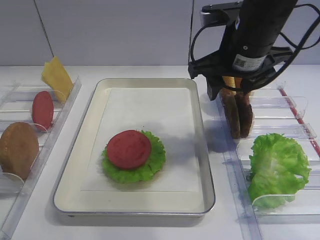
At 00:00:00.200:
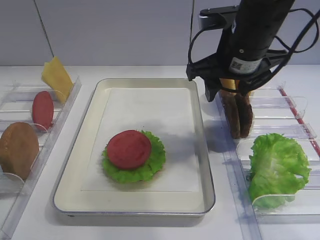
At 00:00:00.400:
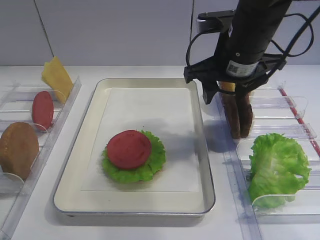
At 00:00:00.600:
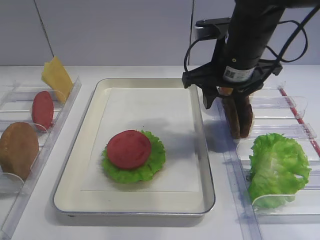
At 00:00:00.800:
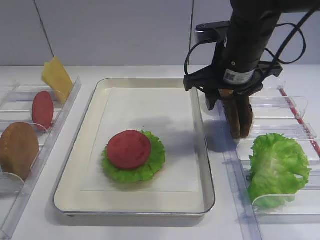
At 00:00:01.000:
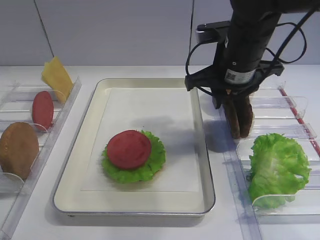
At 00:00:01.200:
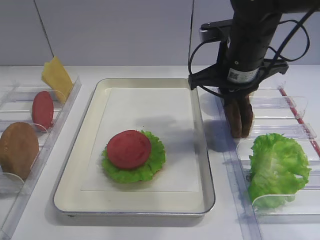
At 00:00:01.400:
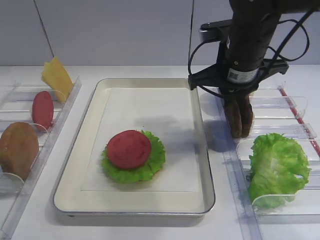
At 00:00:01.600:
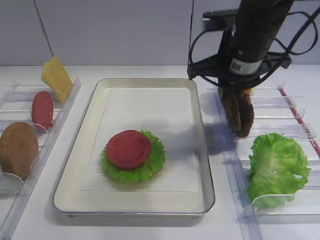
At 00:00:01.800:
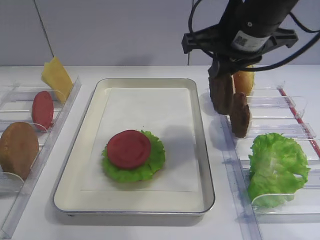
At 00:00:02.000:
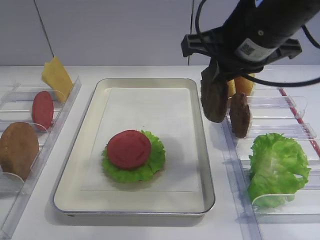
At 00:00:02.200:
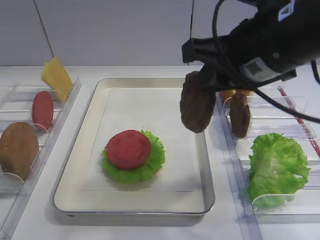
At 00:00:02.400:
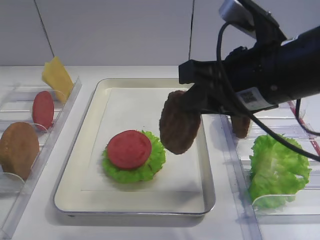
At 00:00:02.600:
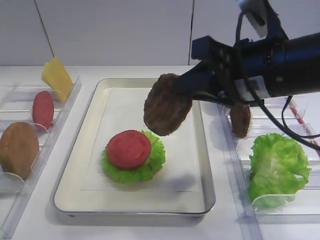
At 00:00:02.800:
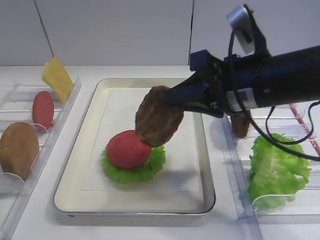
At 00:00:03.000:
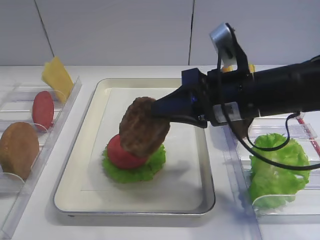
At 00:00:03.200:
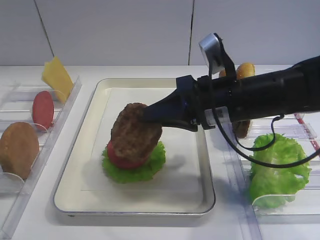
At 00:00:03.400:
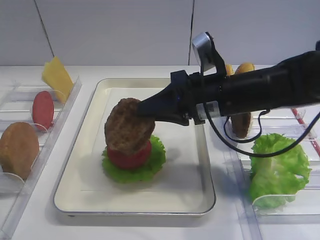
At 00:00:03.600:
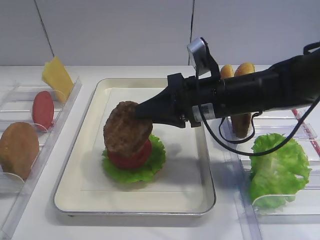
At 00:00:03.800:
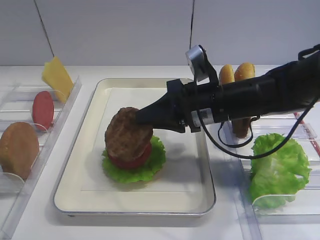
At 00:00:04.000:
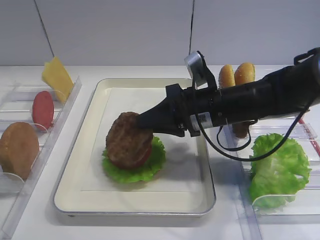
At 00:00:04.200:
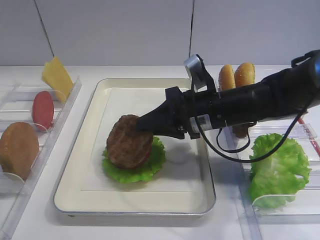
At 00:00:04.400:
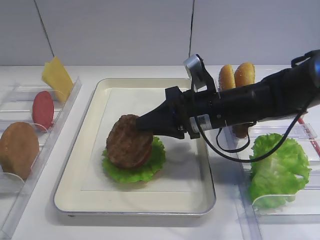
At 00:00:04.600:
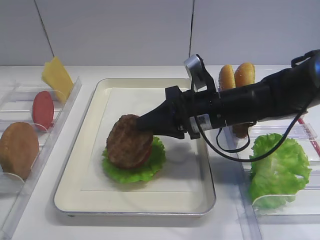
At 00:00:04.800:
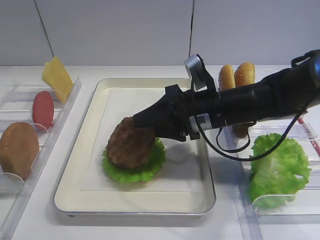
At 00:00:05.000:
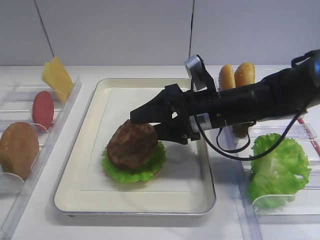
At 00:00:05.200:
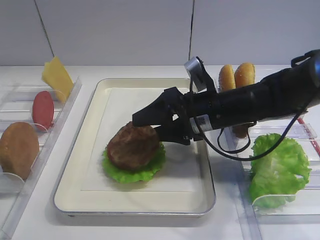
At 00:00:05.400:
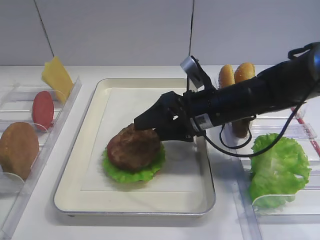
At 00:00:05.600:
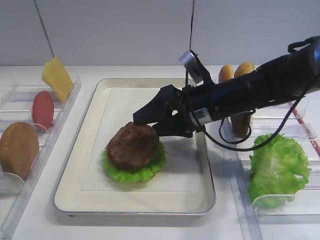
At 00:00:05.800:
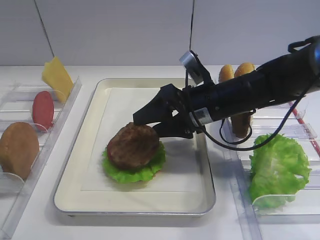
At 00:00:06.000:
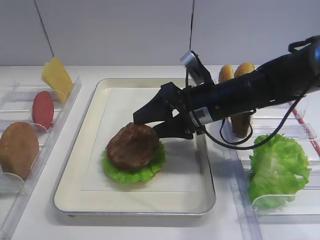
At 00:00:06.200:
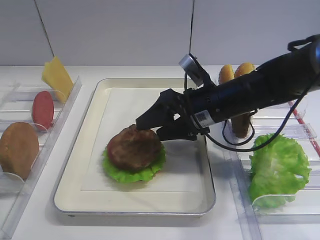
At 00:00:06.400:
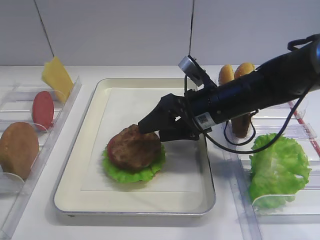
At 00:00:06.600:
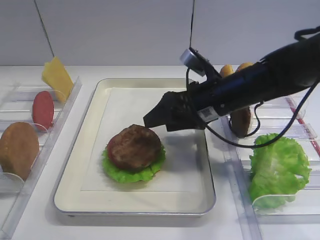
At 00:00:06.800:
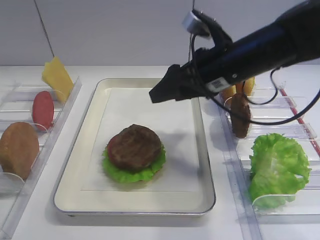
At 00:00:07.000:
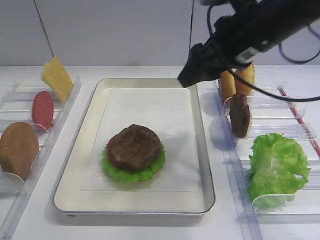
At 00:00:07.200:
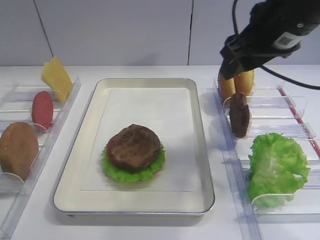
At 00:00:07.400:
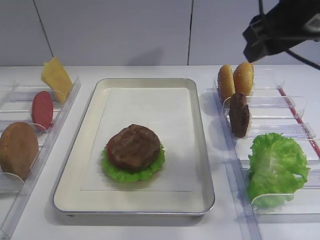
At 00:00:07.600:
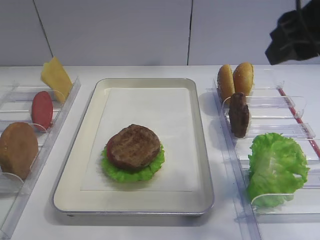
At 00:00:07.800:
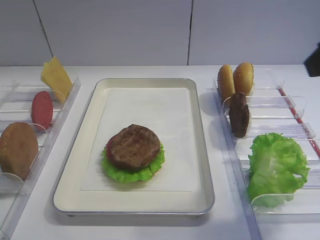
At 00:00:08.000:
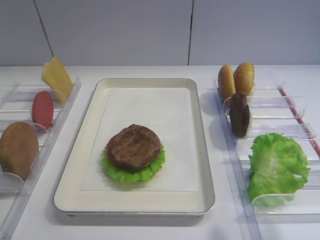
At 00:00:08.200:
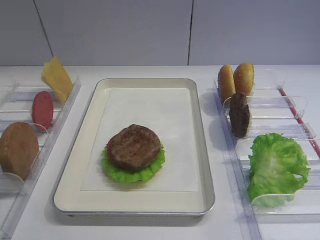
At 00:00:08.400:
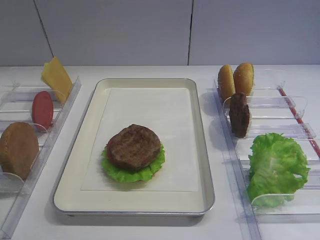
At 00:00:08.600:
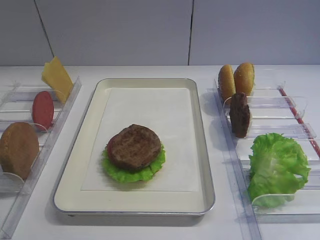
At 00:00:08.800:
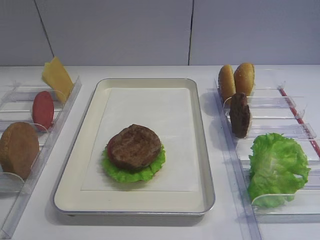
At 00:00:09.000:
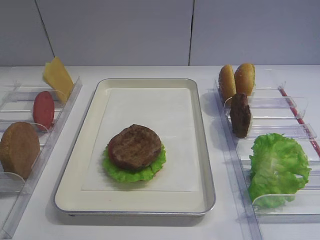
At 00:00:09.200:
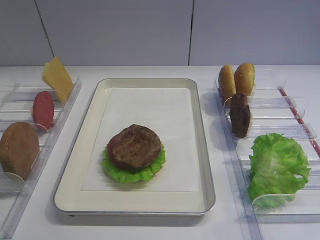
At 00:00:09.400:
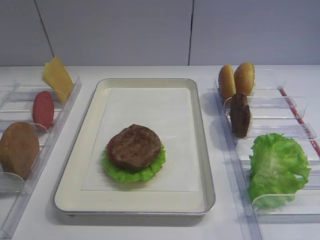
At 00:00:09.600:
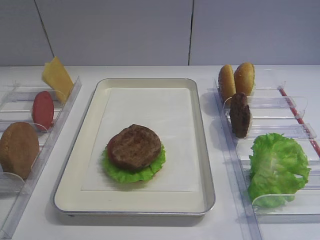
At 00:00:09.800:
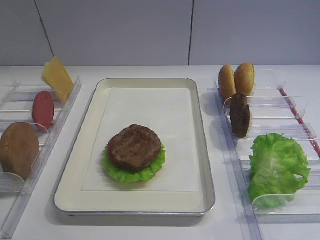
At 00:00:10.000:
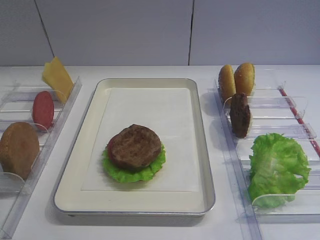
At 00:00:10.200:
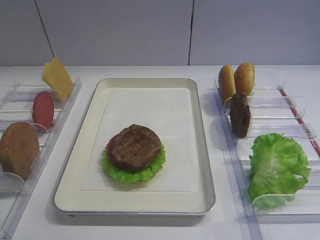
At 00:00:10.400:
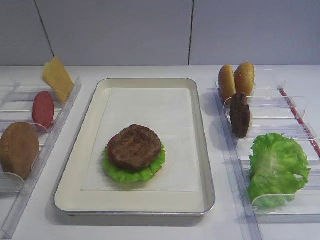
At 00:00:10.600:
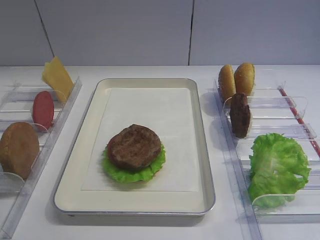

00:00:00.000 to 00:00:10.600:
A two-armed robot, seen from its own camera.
Step, 00:00:01.800 to 00:00:06.800: Place the cutlet on the tomato slice with the right gripper.
00:00:00.000 to 00:00:01.600: The right gripper closes up.
00:00:01.600 to 00:00:03.000: The right gripper travels backward by roughly 5 cm.
00:00:03.000 to 00:00:04.600: The right gripper is displaced downward and forward by roughly 10 cm.
00:00:04.600 to 00:00:06.000: The right gripper opens its fingers.
00:00:06.000 to 00:00:07.600: The right gripper travels upward, to the right and backward by roughly 25 cm.
00:00:07.600 to 00:00:09.000: The right gripper moves backward, about 25 cm.
00:00:09.000 to 00:00:10.600: Neither gripper changes place.

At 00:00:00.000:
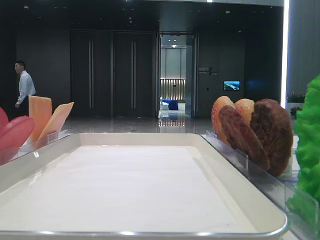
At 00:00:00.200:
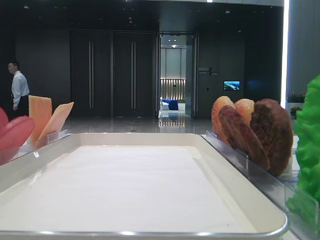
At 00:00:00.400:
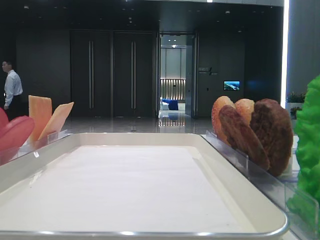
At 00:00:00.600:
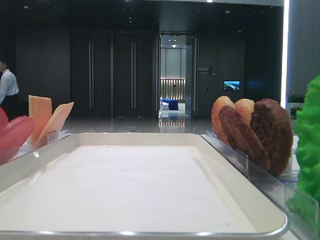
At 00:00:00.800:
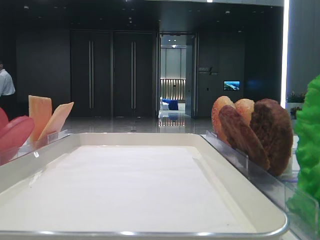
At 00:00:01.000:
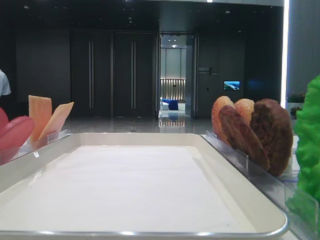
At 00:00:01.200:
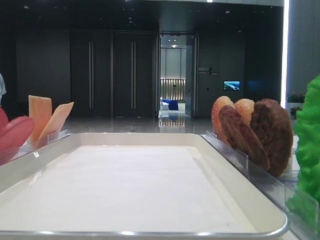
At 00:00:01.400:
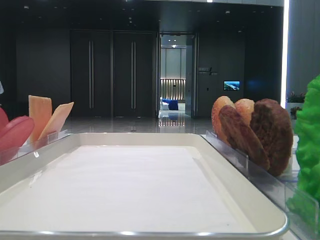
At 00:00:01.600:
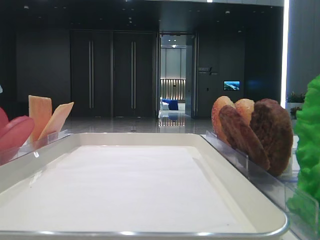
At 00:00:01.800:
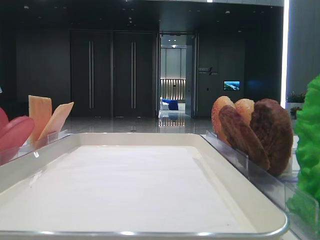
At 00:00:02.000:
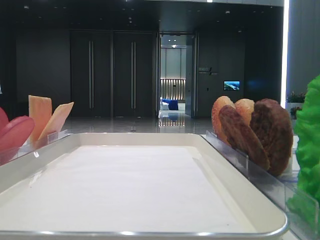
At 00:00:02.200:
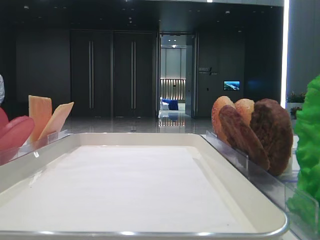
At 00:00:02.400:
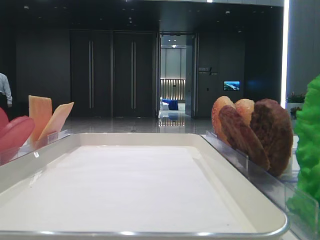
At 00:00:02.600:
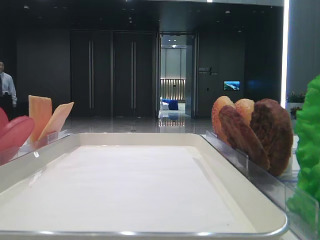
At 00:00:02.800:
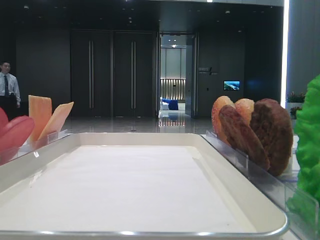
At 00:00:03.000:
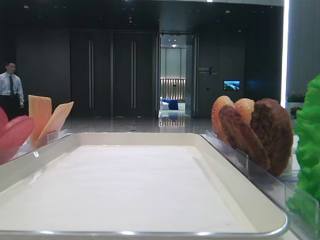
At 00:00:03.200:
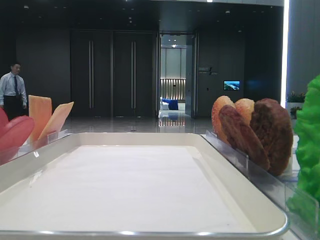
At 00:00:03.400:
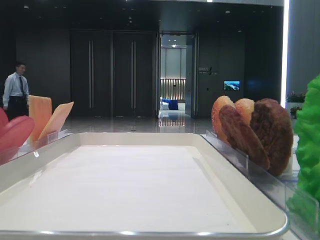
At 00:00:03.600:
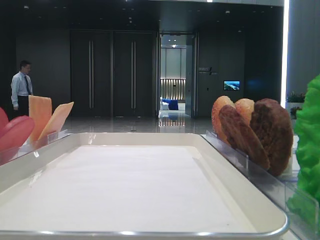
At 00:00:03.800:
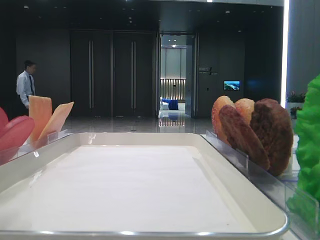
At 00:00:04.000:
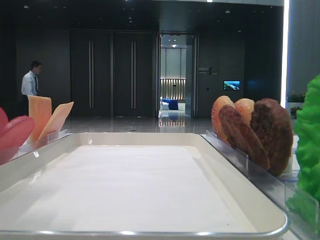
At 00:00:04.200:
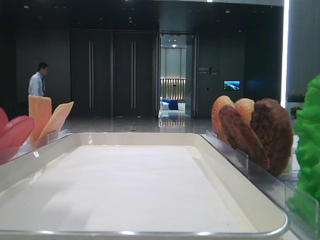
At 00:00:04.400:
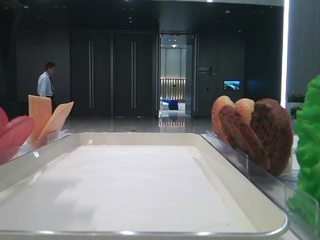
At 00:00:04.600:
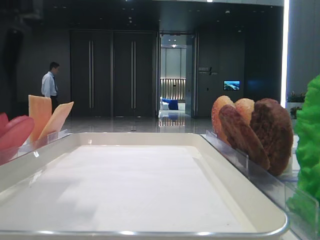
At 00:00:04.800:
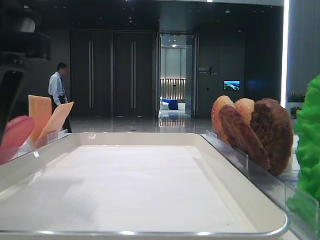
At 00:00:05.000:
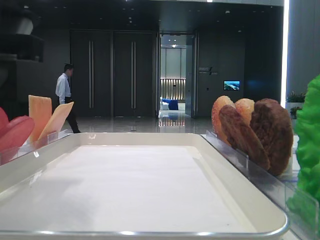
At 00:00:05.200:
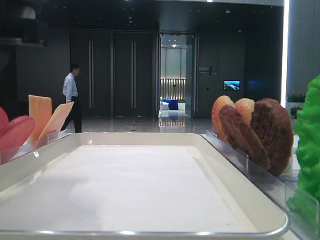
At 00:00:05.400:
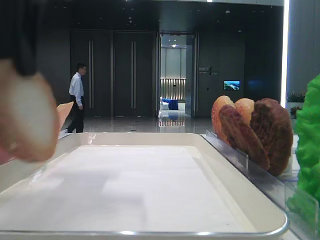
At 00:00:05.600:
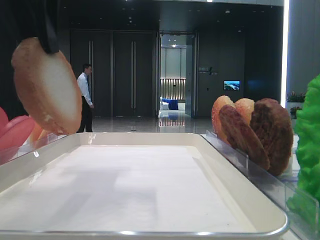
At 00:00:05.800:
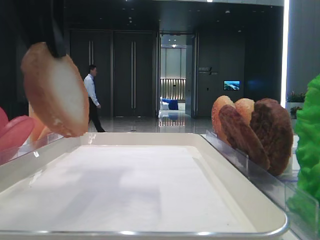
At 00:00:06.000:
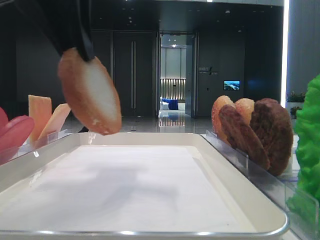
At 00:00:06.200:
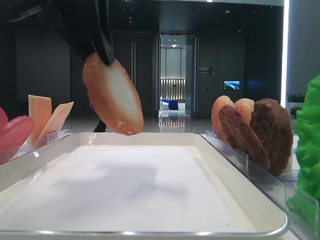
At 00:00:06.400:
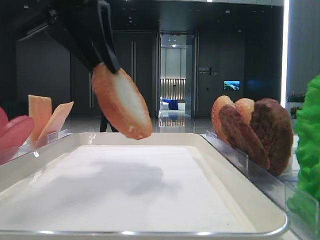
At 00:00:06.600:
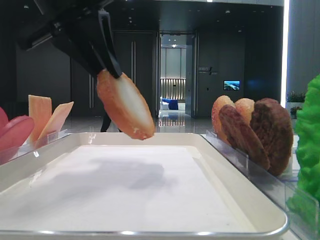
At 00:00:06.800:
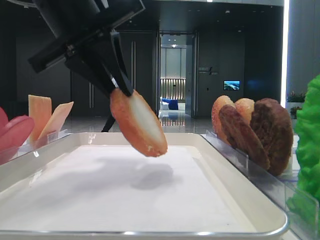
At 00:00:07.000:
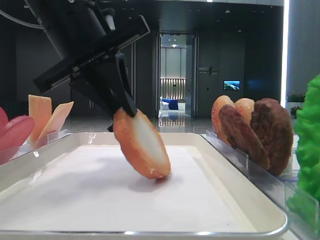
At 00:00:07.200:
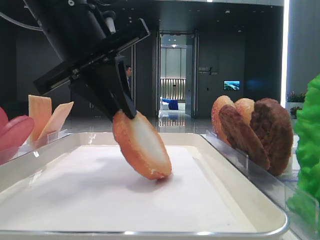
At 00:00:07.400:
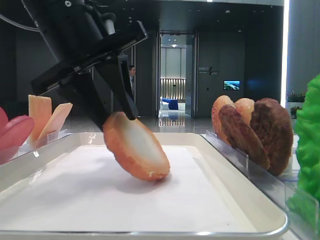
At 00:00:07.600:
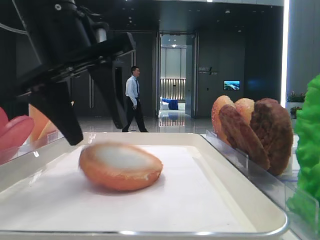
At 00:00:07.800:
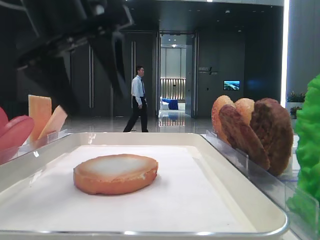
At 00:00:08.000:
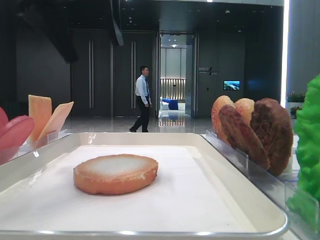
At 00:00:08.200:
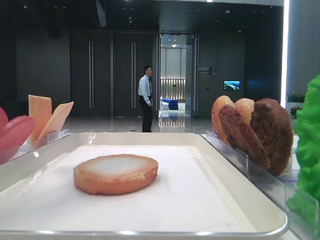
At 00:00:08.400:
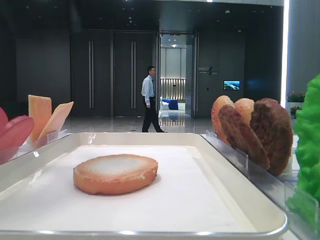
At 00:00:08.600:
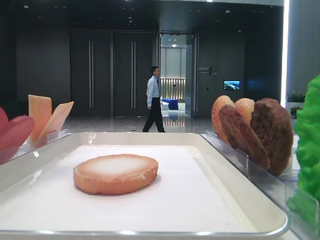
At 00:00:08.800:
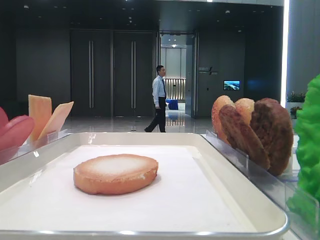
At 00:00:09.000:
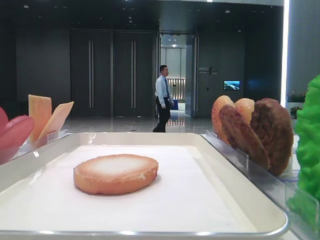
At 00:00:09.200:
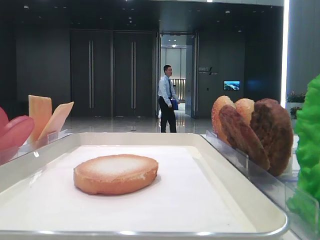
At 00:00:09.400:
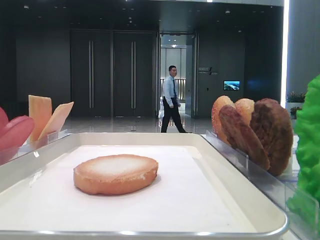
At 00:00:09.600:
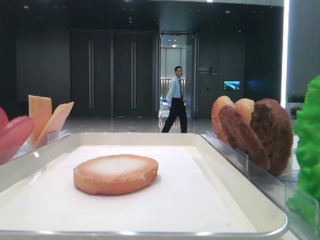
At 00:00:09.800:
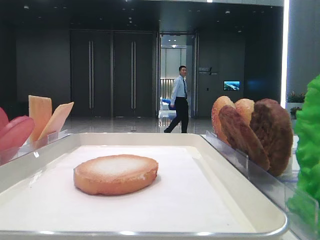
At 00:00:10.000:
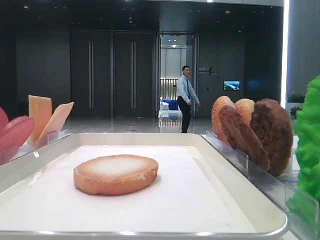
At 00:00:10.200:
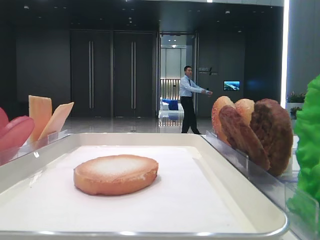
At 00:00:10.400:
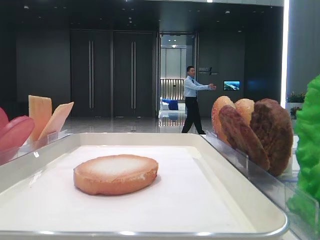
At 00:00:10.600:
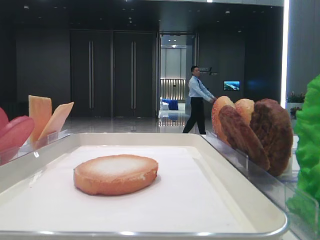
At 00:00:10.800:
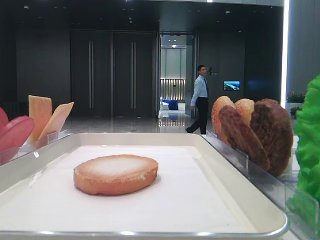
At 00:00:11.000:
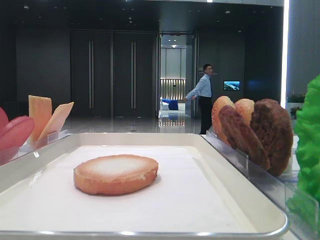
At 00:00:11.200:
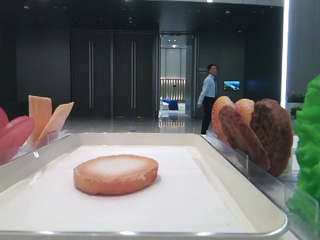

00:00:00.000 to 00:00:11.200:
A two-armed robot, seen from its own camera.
Step, 00:00:00.000 to 00:00:04.800: Pick up the bottom bread with the left hand.
Step, 00:00:05.200 to 00:00:07.600: Place the bread on the tray with the left hand.
00:00:01.600 to 00:00:03.200: The left gripper moves forward, some 15 cm.
00:00:03.200 to 00:00:04.800: The left gripper shifts approximately 15 cm to the right and downward.
00:00:04.800 to 00:00:06.400: The left gripper is displaced forward and upward by roughly 10 cm, and closes up.
00:00:06.400 to 00:00:08.000: The left gripper travels downward and back again, some 5 cm each way, and opens its fingers.
00:00:08.000 to 00:00:09.600: The left gripper travels backward and to the left by some 30 cm.
00:00:09.600 to 00:00:11.200: The left gripper moves backward, approximately 10 cm.
